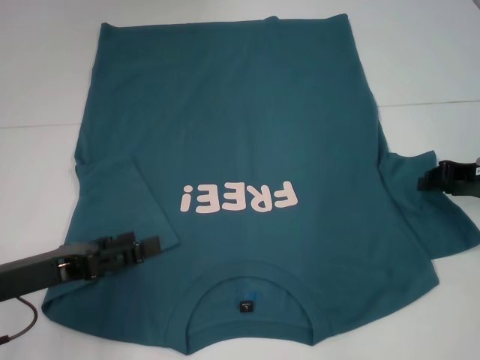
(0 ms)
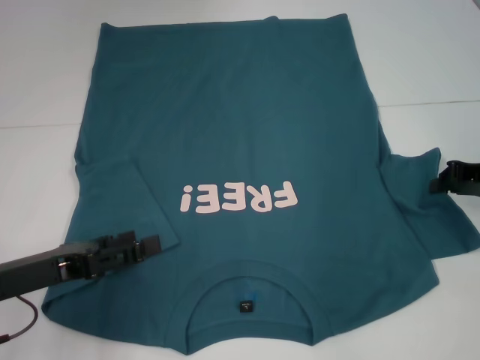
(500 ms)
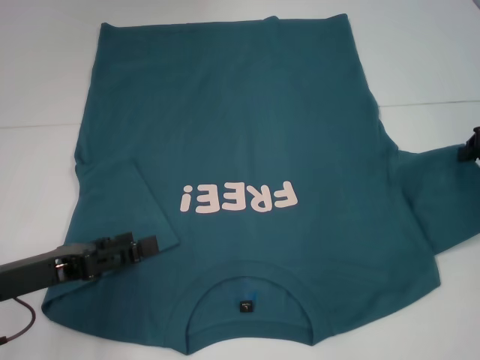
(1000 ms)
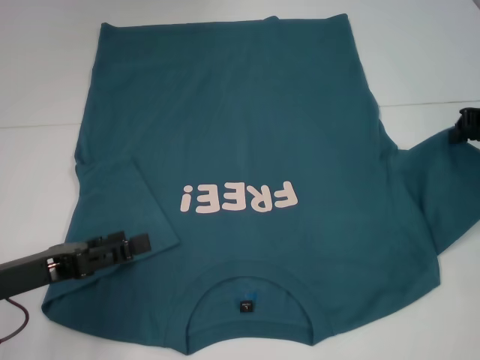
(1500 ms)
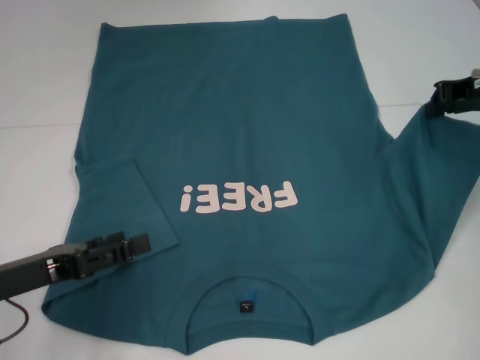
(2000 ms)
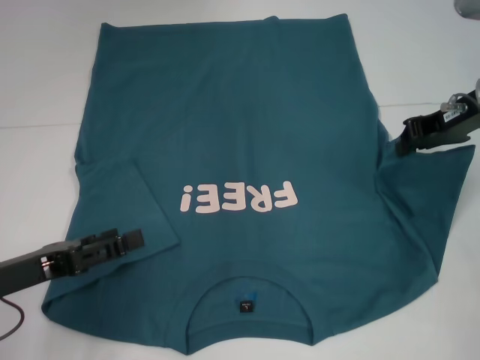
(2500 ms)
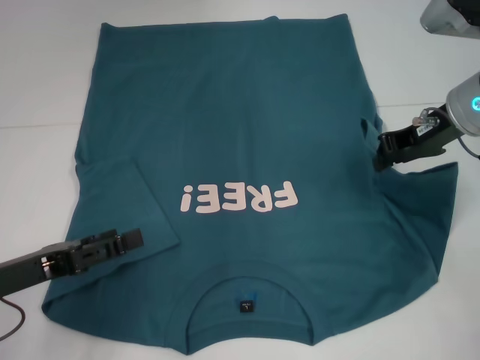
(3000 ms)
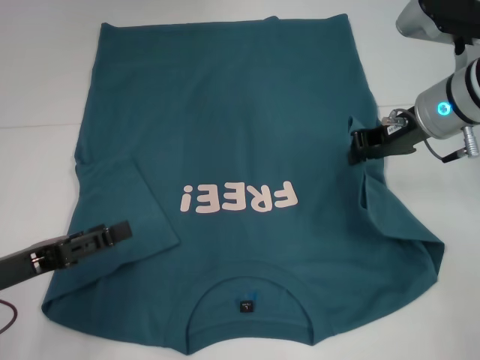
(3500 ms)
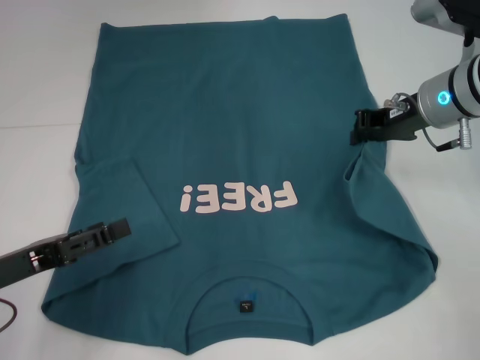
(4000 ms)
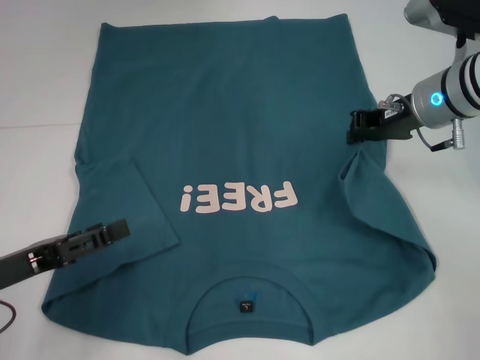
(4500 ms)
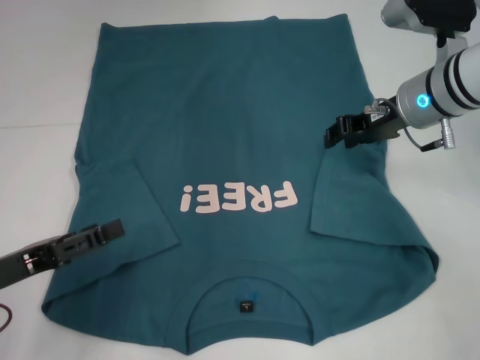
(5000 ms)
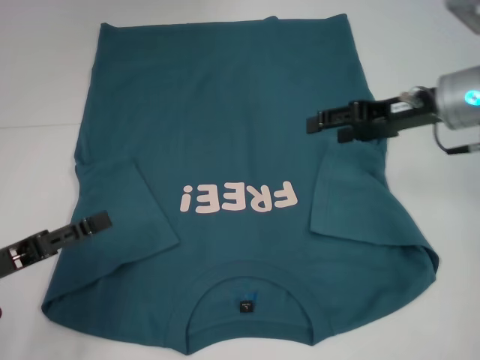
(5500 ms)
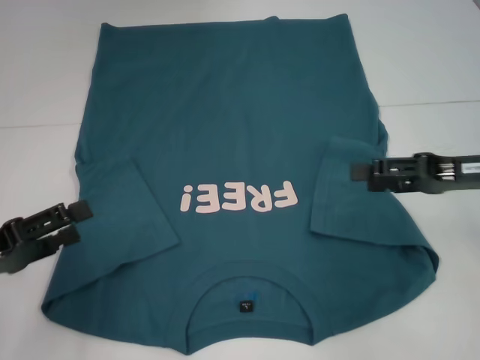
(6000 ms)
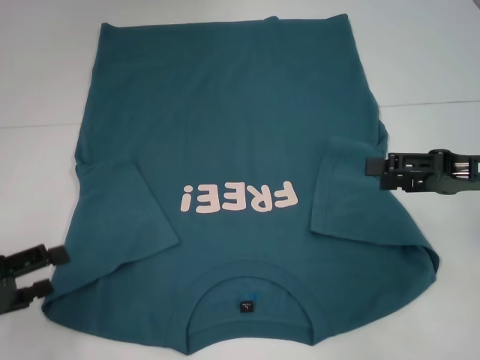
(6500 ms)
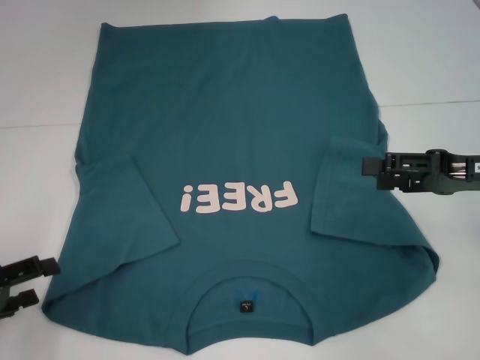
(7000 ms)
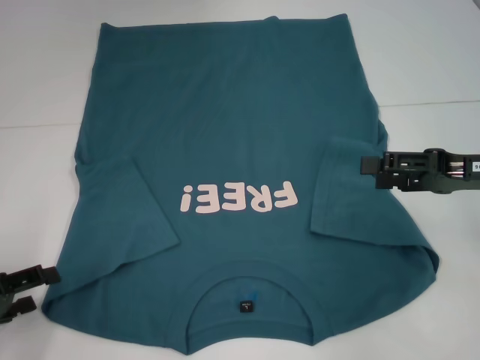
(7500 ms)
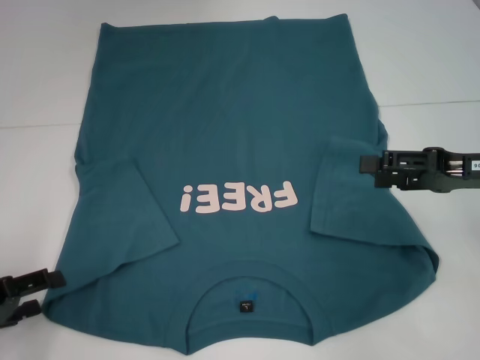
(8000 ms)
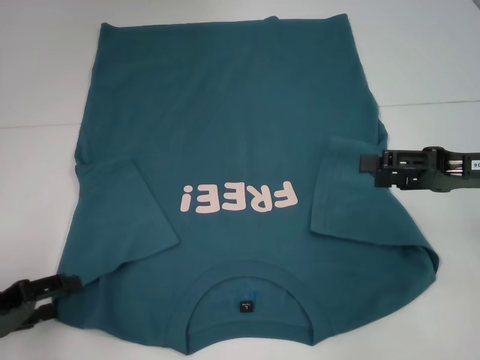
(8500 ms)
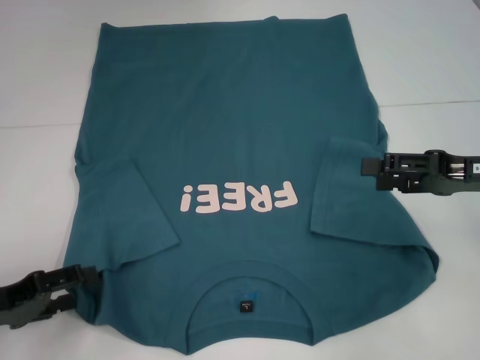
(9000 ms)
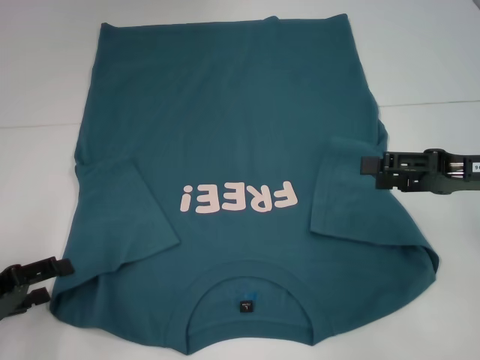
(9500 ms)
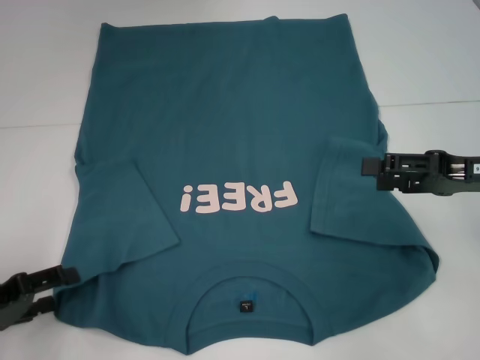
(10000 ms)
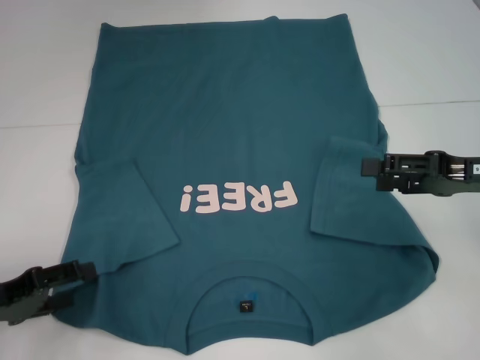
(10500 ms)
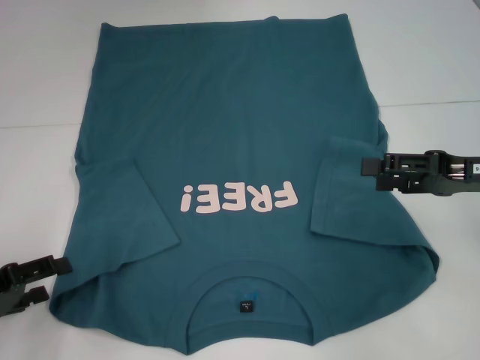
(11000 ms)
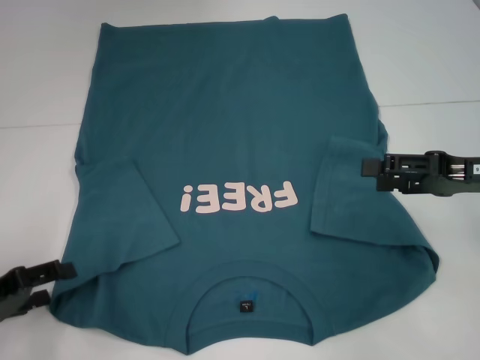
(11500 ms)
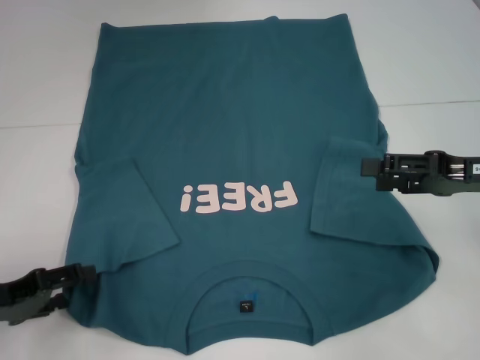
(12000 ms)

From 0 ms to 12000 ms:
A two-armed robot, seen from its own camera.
Step, from 0 ms to 5000 ms: Fold the bottom right sleeve to the right.
From 0 ms to 2000 ms: The right gripper heads upward and forward, covering approximately 10 cm, and closes its fingers.
From 2000 ms to 4000 ms: The right gripper heads to the left, covering some 5 cm.
From 4000 ms to 6000 ms: The right gripper travels backward and to the right by approximately 15 cm, and opens up.
From 8000 ms to 12000 ms: The grippers make only small movements.

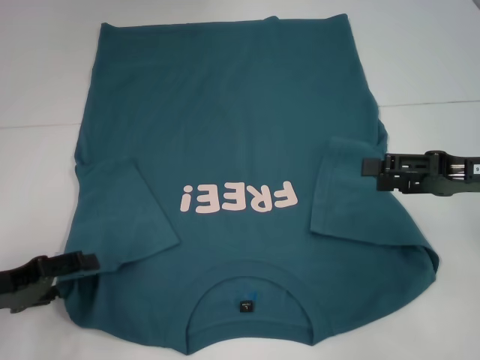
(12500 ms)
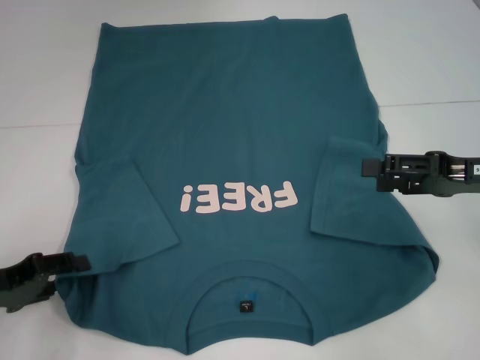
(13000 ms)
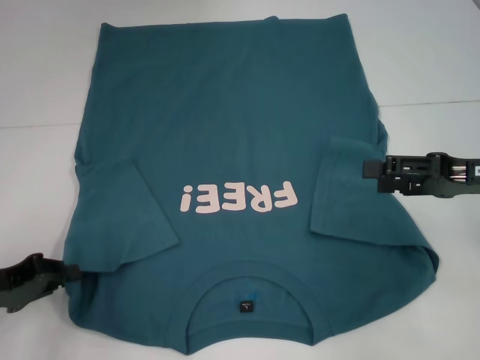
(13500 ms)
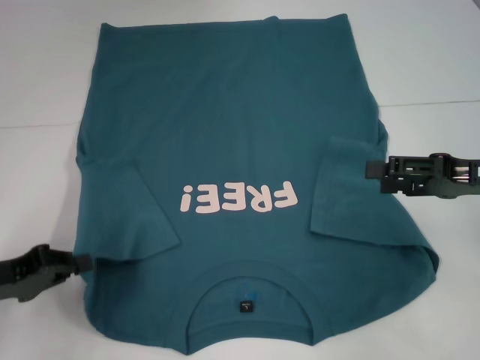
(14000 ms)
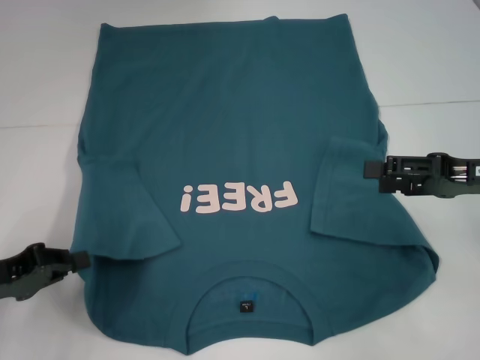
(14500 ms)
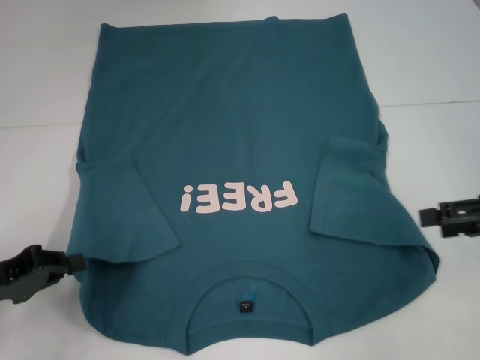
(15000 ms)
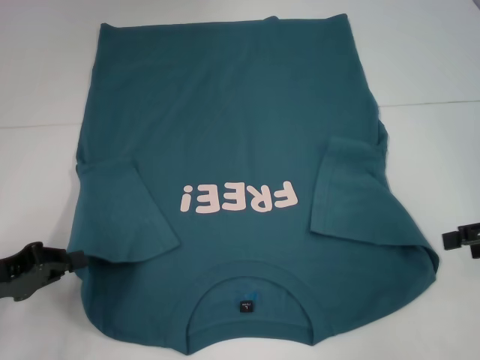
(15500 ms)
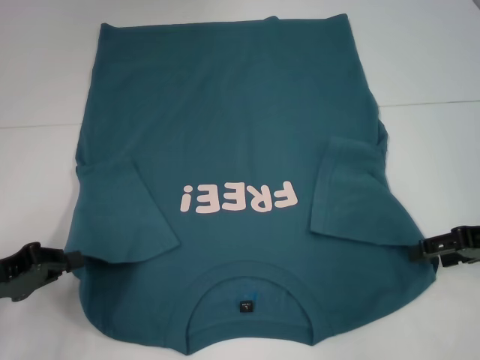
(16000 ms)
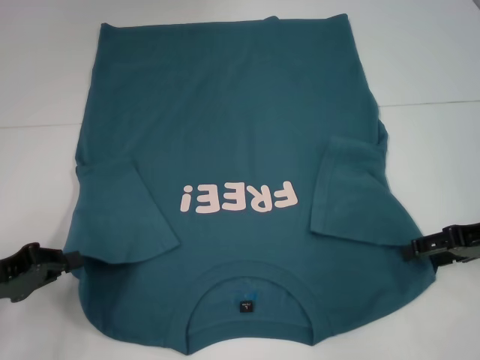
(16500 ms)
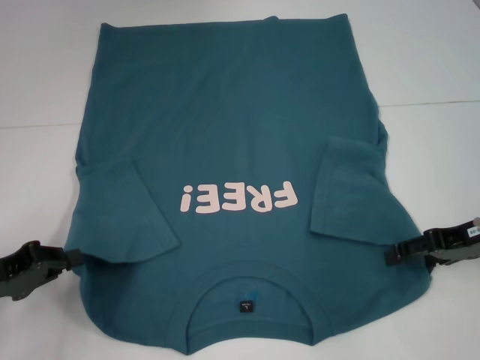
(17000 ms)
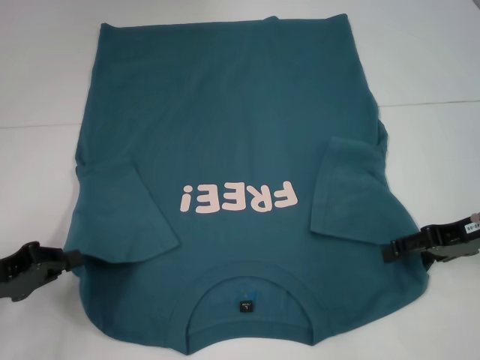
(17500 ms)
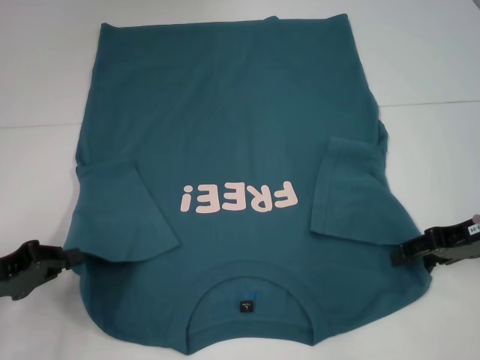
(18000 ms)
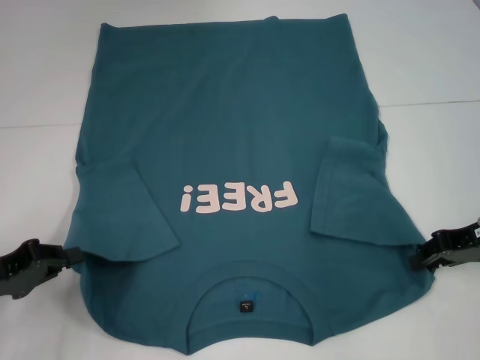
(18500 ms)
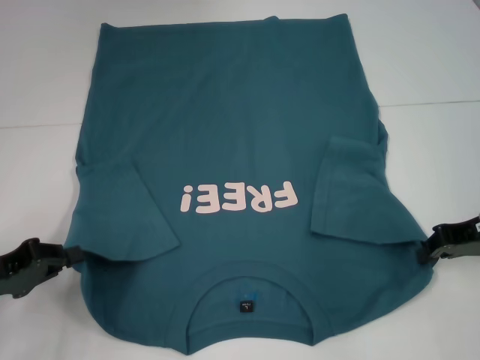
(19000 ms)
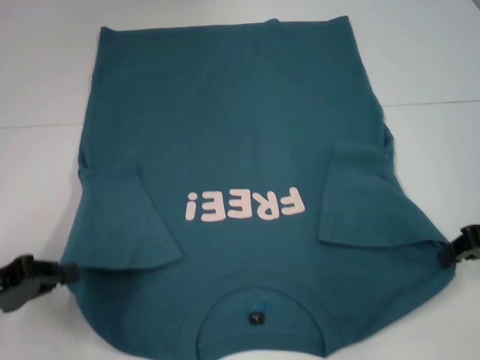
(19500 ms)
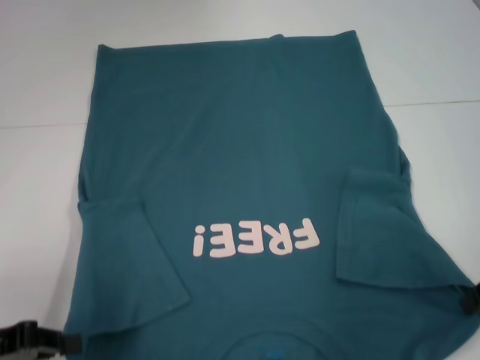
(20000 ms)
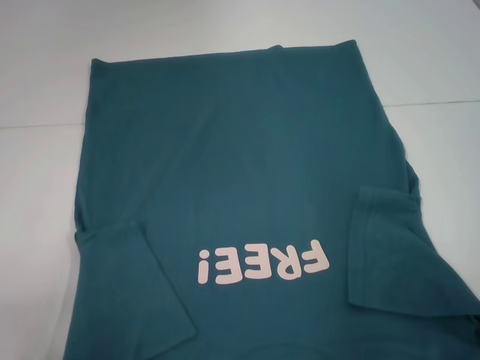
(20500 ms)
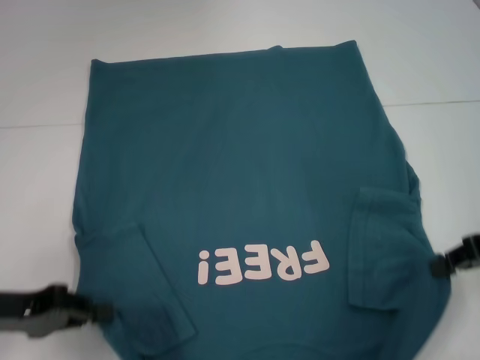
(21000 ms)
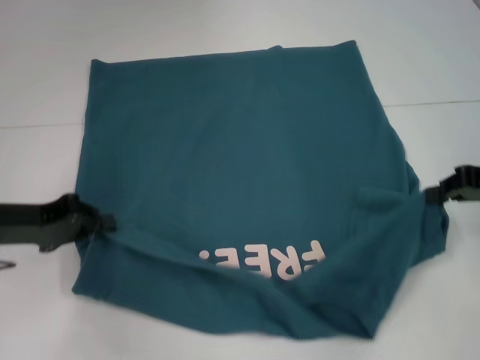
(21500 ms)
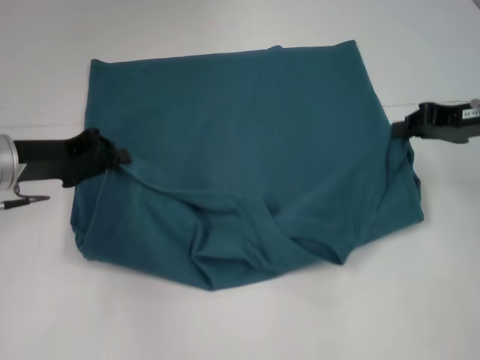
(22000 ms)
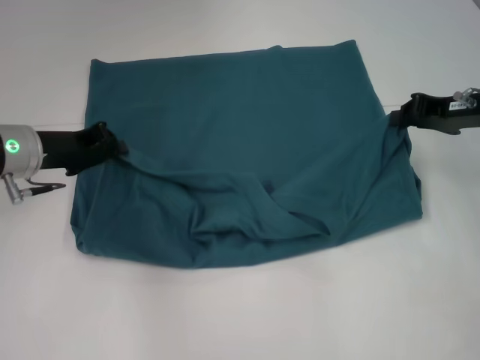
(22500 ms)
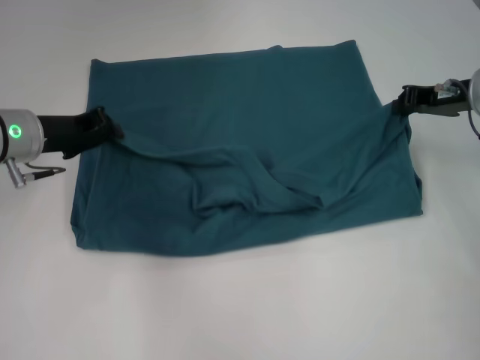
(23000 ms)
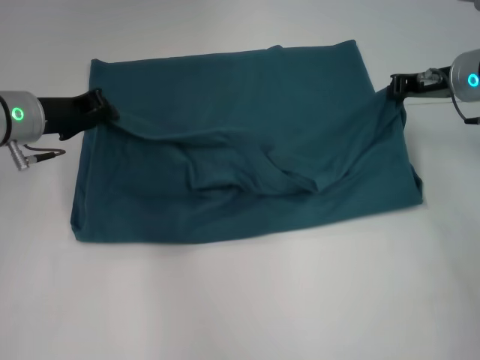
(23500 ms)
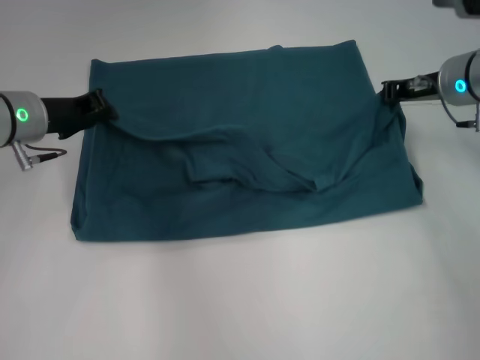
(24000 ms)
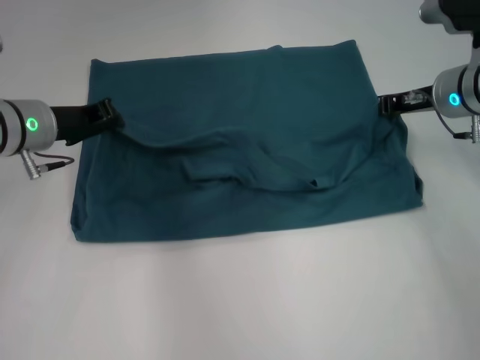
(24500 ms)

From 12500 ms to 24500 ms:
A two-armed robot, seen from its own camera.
Step, from 14000 ms to 19000 ms: Grab the bottom right corner with your right hand.
From 12500 ms to 14500 ms: The left gripper closes.
From 16500 ms to 18500 ms: The right gripper closes.
From 18500 ms to 20500 ms: The grippers both shift backward by some 5 cm. The right gripper closes up.
From 20500 ms to 22500 ms: The left gripper shifts about 20 cm forward and to the right. The right gripper moves forward, approximately 15 cm.
From 22500 ms to 24500 ms: The right gripper changes place by some 5 cm.

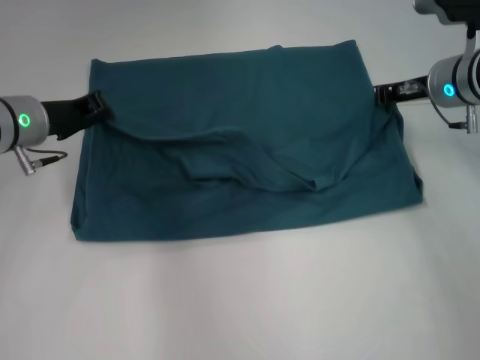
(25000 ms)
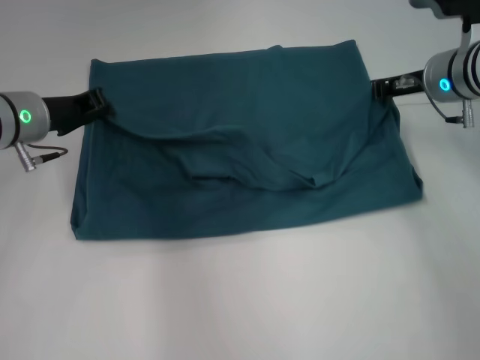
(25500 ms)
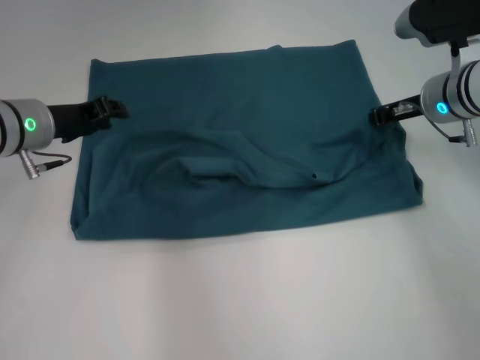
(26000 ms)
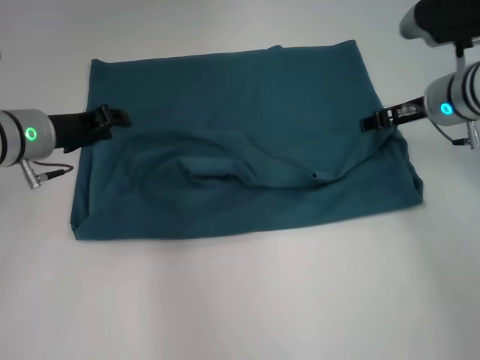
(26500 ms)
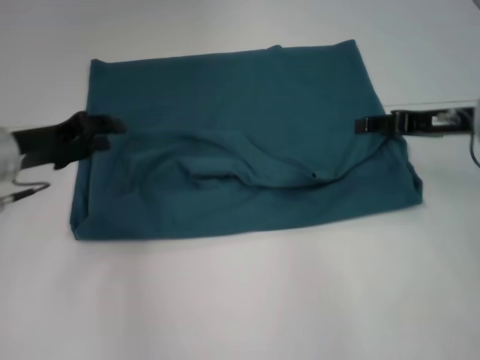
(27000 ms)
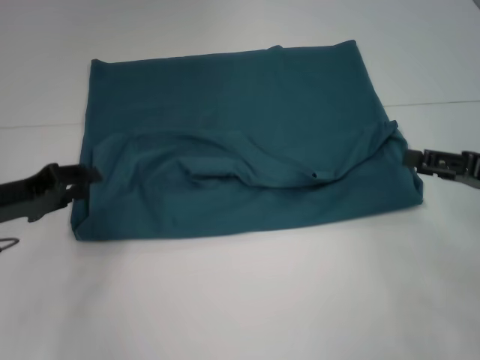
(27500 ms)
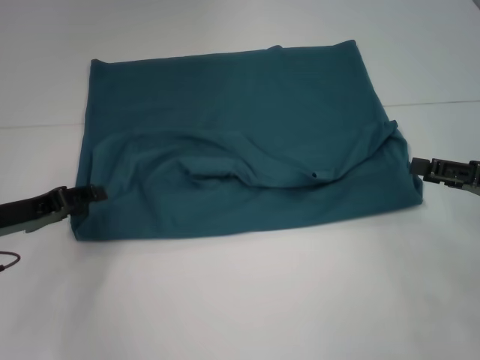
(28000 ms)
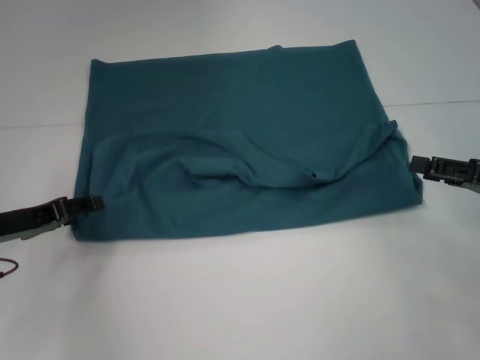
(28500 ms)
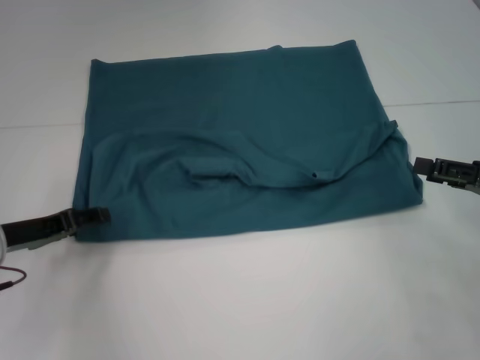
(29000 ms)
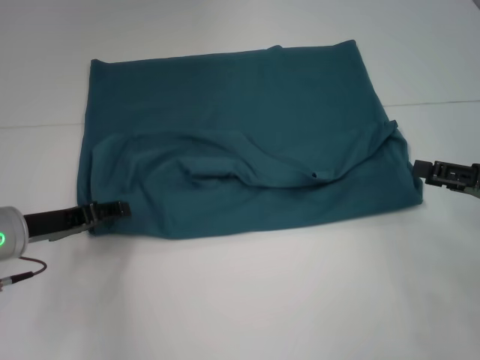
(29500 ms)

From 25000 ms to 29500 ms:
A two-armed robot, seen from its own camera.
From 25000 ms to 27000 ms: The right gripper goes approximately 5 cm backward, and opens. The left gripper changes place by roughly 5 cm, and opens its fingers.
From 27000 ms to 29500 ms: The left gripper travels downward by approximately 5 cm, while the right gripper heads backward and to the right, covering roughly 10 cm.
